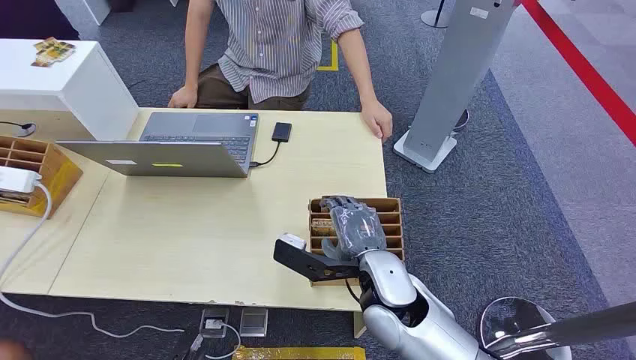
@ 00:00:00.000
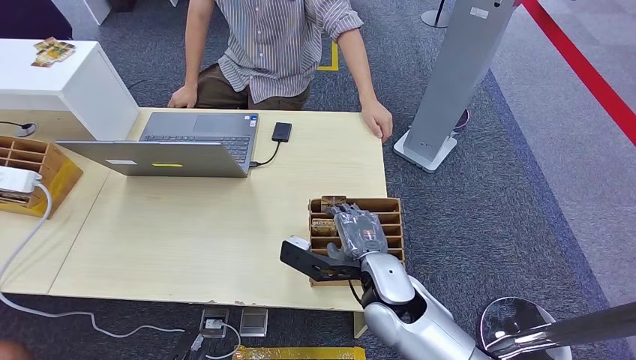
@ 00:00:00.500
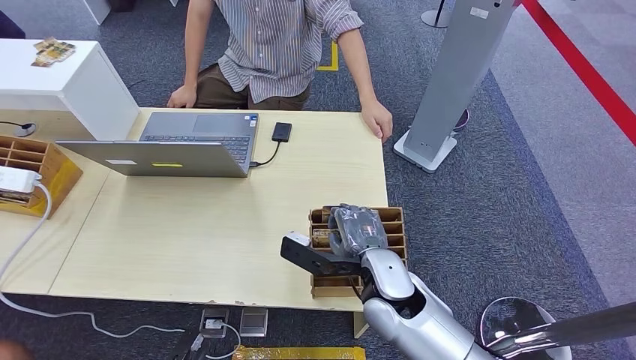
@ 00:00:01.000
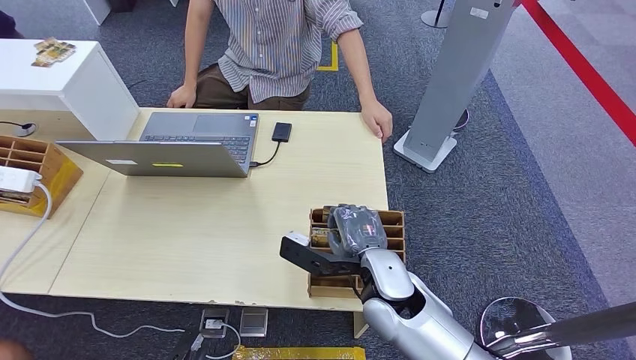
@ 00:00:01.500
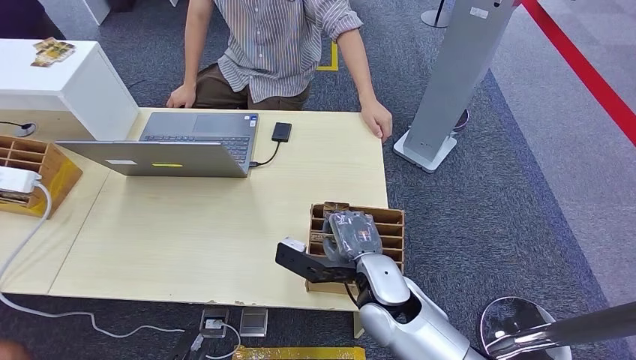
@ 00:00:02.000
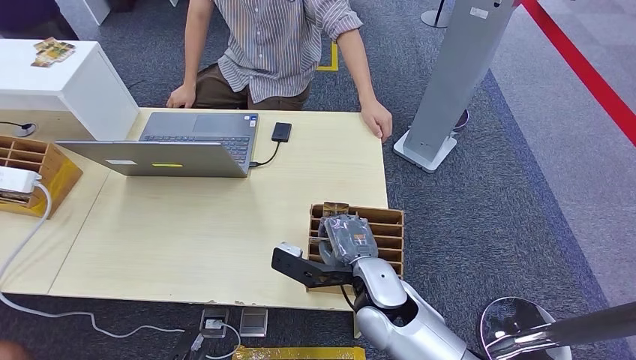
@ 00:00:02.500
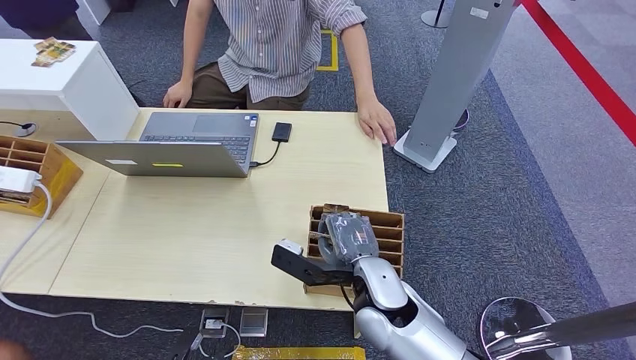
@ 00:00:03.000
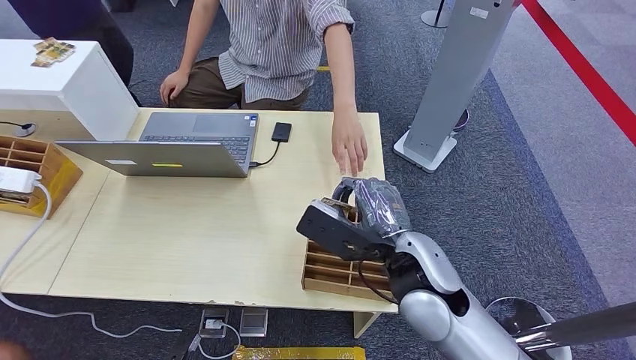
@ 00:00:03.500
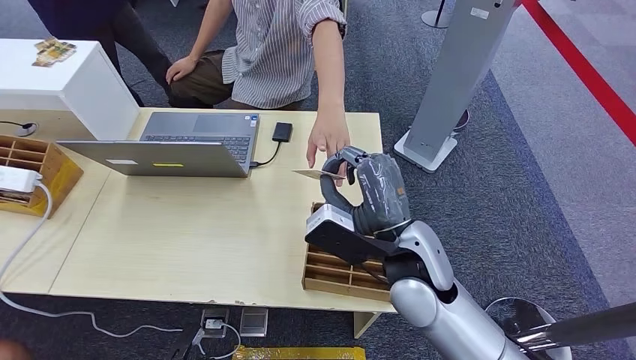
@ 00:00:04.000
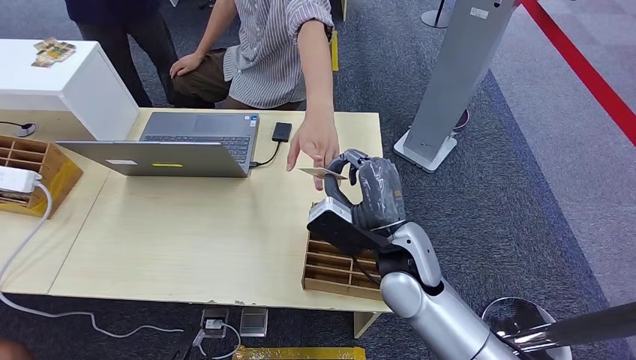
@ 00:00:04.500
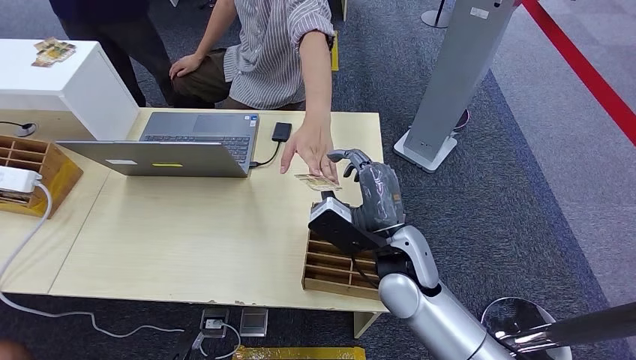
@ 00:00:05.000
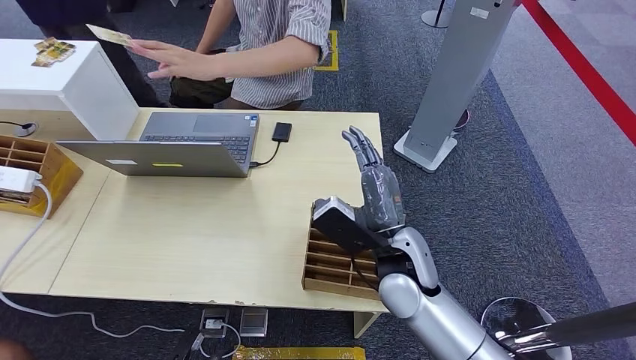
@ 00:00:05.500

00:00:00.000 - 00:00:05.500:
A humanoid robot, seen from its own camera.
Step, 00:00:00.000 - 00:00:03.500: Pick up the key card from the card box.
Step, 00:00:04.500 - 00:00:05.500: Hand the key card to the target.
00:00:02.000 - 00:00:03.500: The right hand heads upward, covering approximately 10 cm.
00:00:03.500 - 00:00:05.500: The right hand moves some 5 cm.

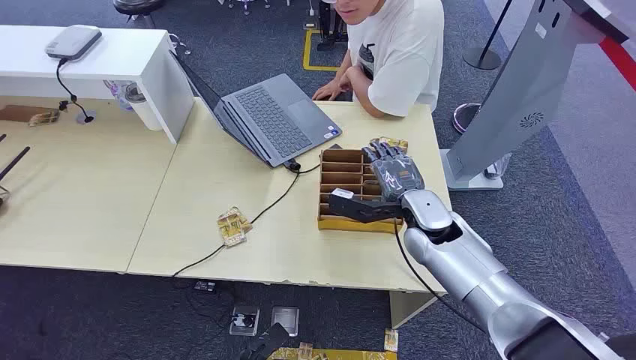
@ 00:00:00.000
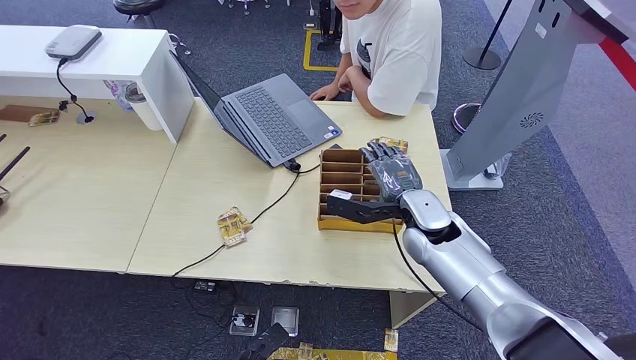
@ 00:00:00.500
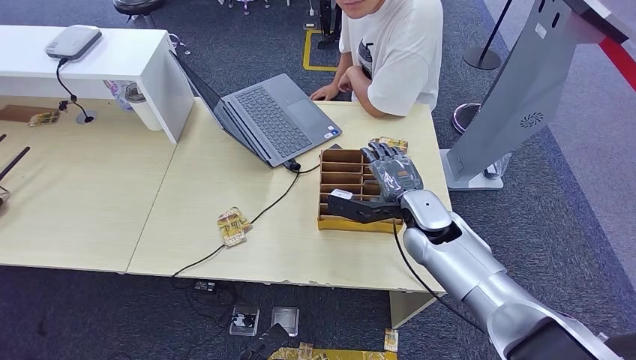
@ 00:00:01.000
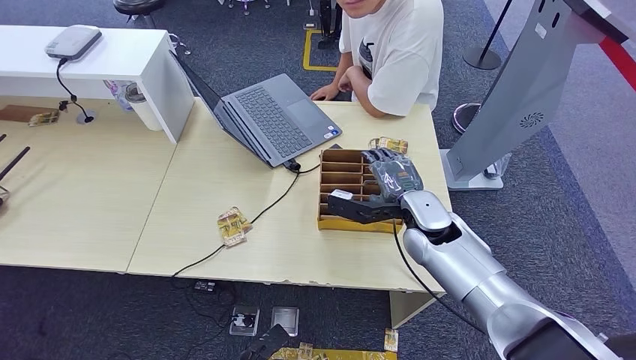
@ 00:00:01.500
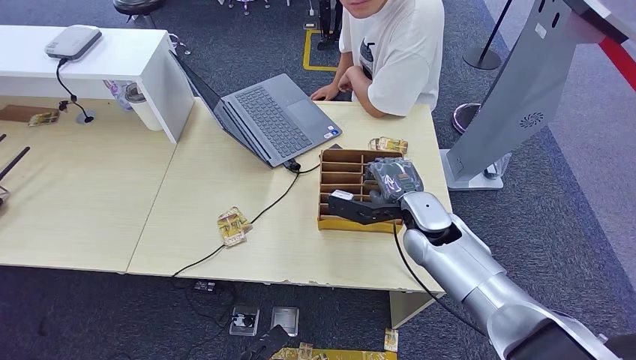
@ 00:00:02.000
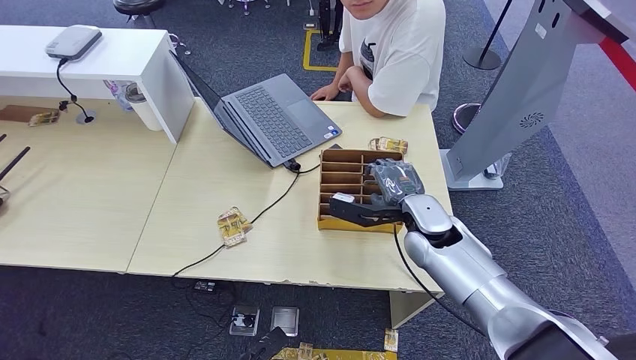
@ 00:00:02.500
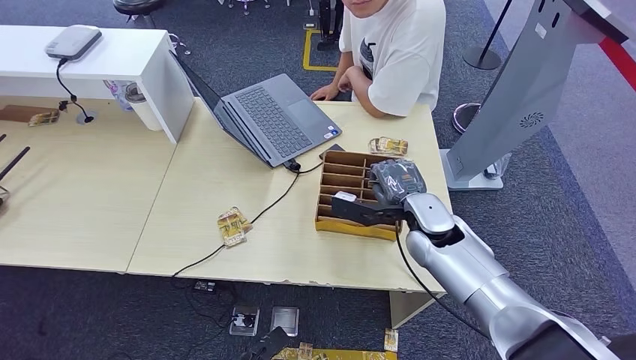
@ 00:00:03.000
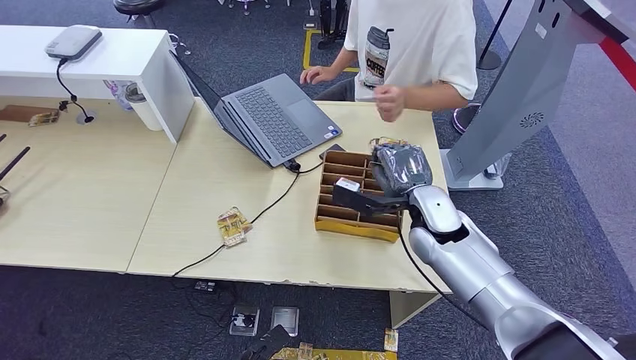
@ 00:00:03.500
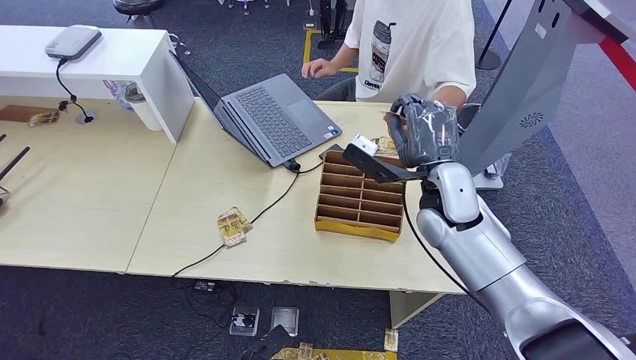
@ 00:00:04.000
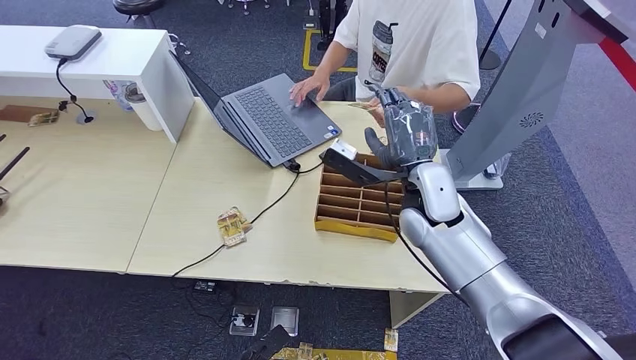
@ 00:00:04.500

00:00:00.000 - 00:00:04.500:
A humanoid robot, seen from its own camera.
Step, 00:00:00.000 - 00:00:03.000: Pick up the key card from the card box.
Step, 00:00:03.500 - 00:00:04.500: Hand the key card to the target.
00:00:02.000 - 00:00:04.500: The right hand goes approximately 5 cm upward.

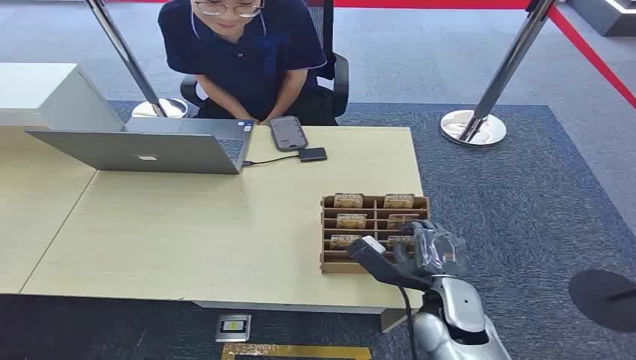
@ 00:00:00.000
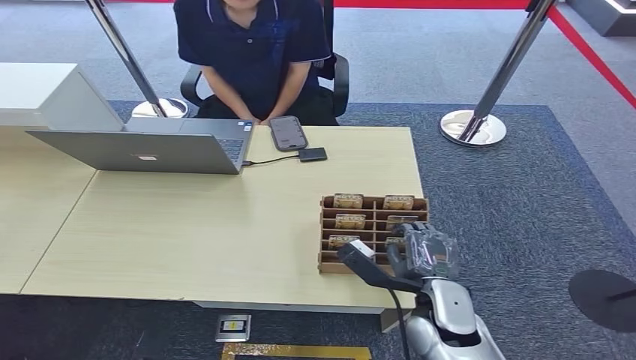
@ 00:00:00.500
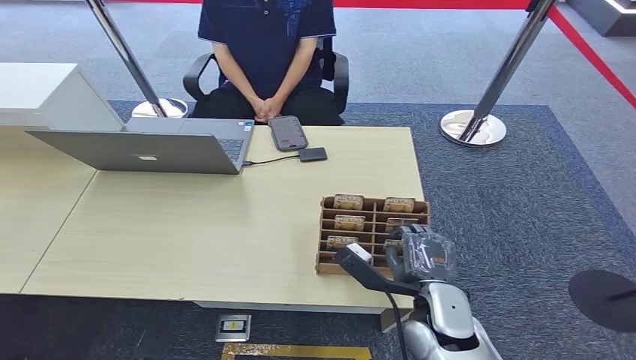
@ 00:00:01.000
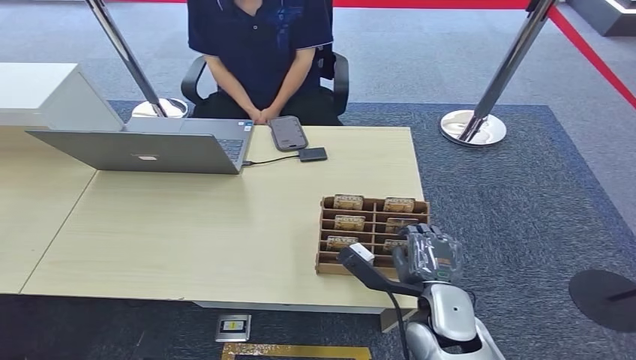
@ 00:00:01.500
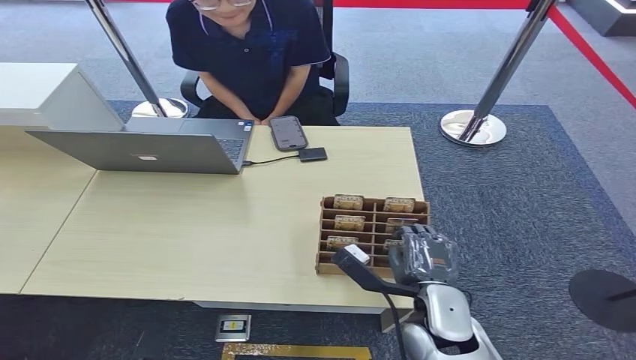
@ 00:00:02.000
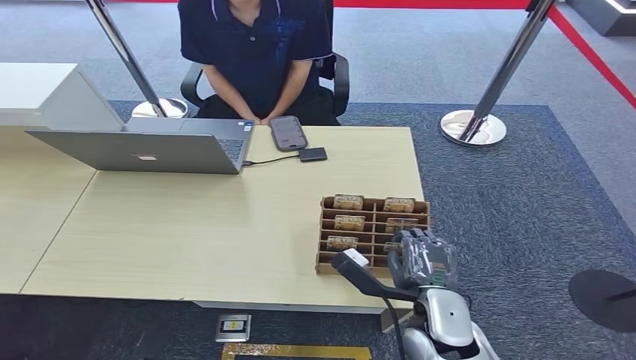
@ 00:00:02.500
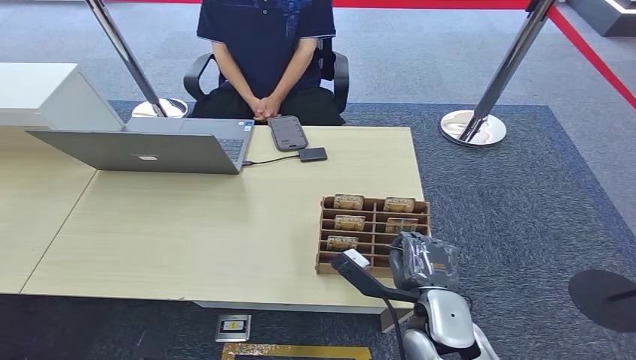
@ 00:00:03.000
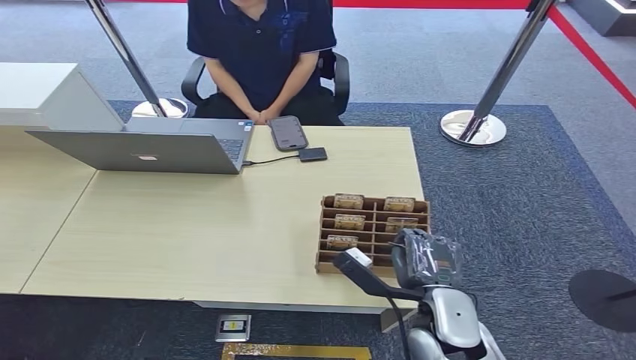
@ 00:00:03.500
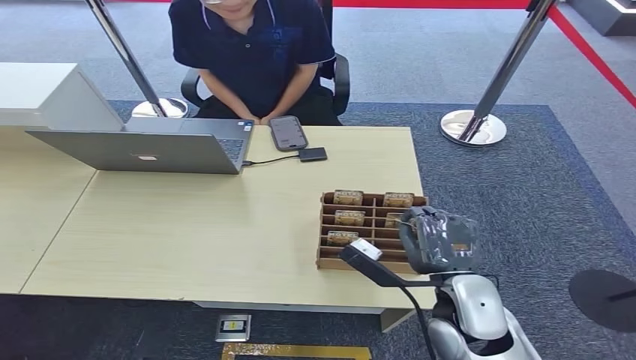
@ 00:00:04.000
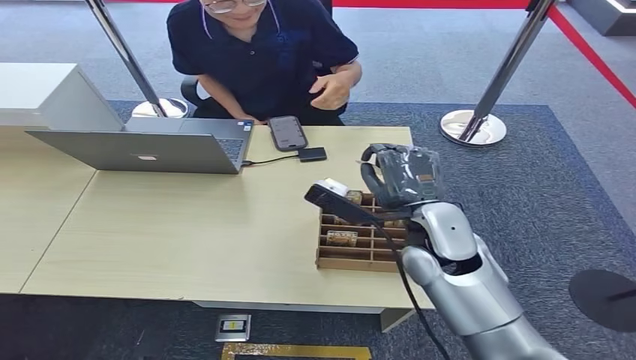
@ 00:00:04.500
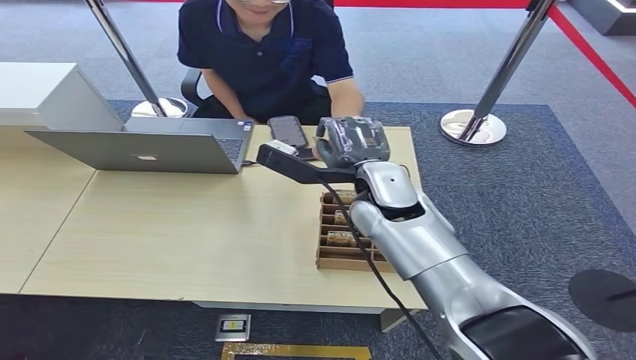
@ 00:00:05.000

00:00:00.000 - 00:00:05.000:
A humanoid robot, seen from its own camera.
Step, 00:00:00.000 - 00:00:04.000: Pick up the key card from the card box.
00:00:02.500 - 00:00:05.000: The right hand heads forward and upward, covering some 25 cm.
